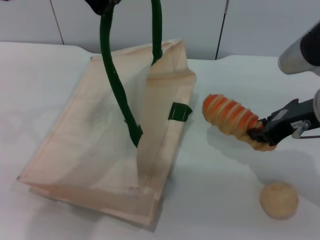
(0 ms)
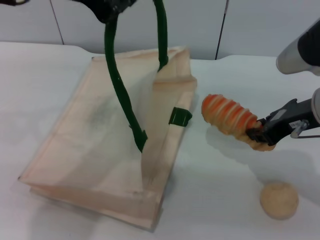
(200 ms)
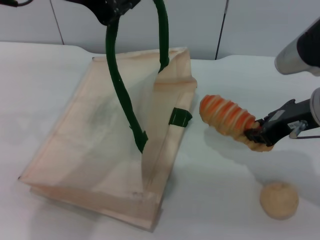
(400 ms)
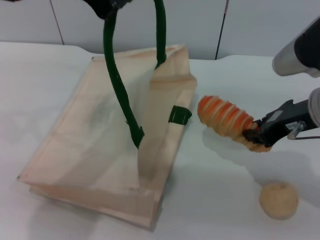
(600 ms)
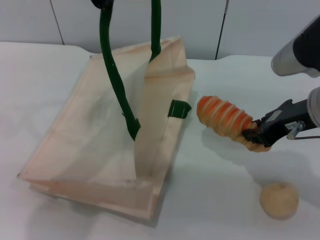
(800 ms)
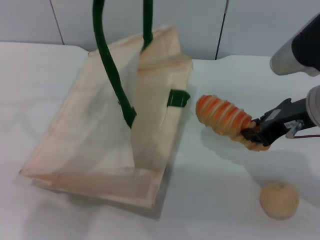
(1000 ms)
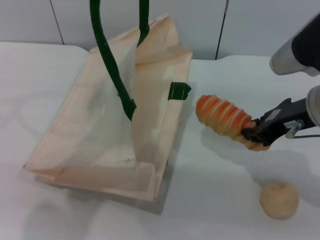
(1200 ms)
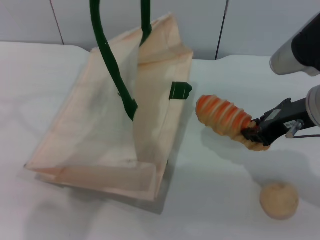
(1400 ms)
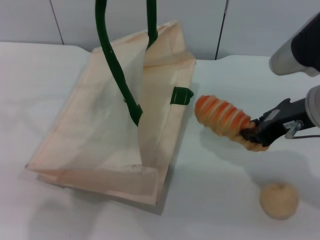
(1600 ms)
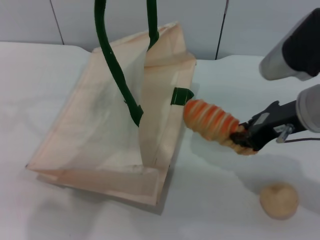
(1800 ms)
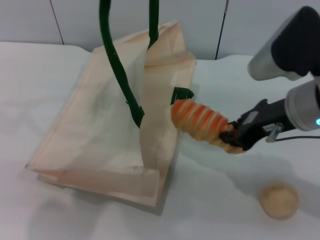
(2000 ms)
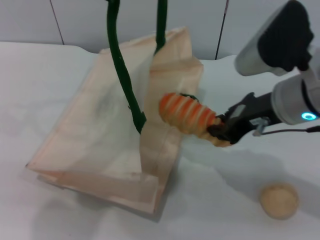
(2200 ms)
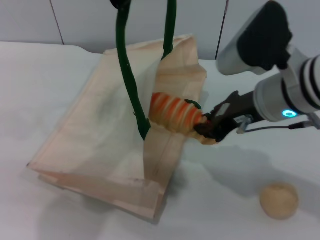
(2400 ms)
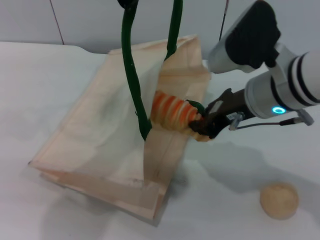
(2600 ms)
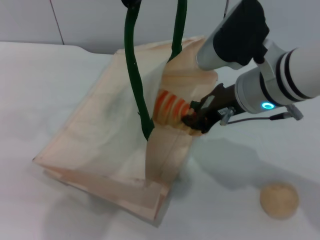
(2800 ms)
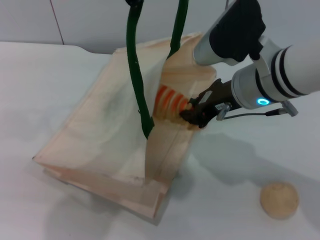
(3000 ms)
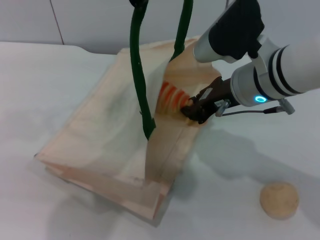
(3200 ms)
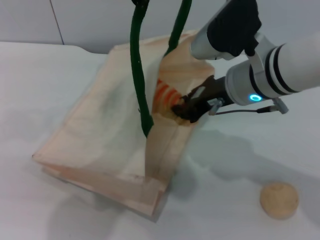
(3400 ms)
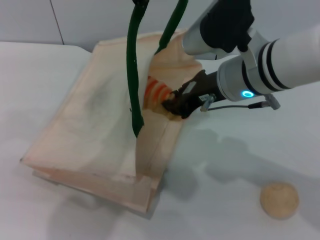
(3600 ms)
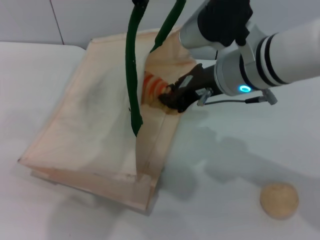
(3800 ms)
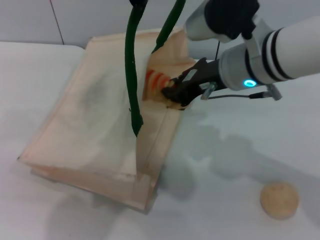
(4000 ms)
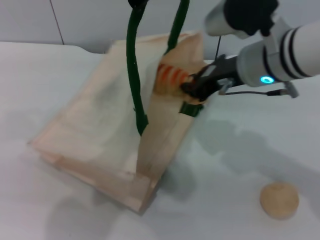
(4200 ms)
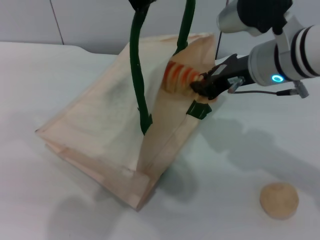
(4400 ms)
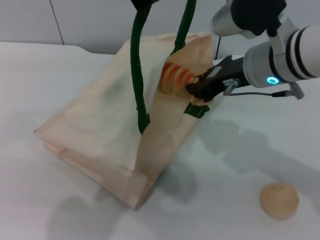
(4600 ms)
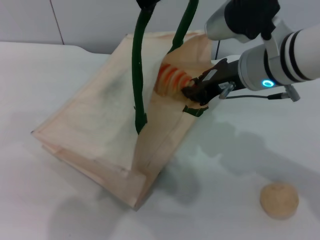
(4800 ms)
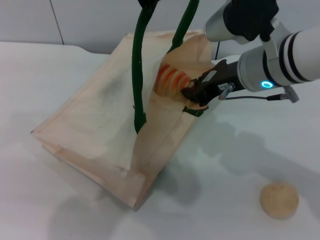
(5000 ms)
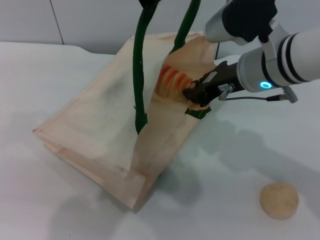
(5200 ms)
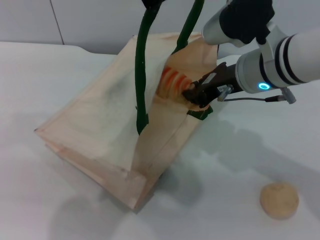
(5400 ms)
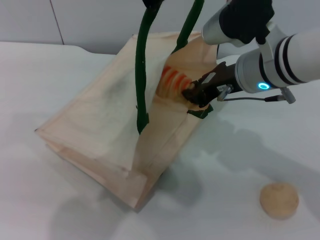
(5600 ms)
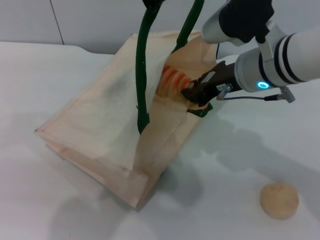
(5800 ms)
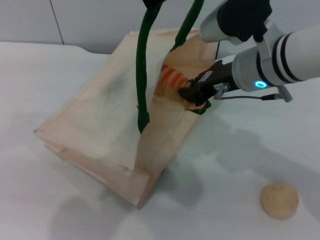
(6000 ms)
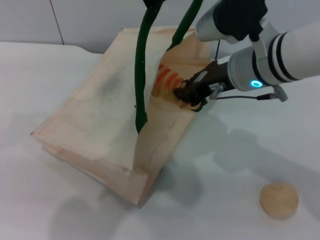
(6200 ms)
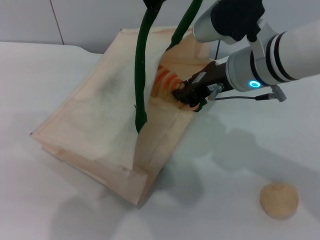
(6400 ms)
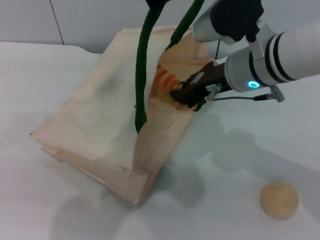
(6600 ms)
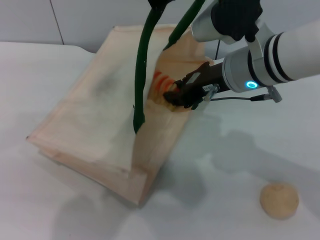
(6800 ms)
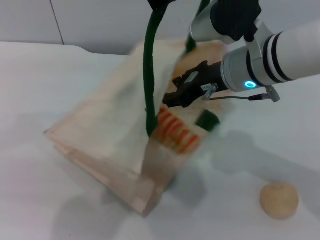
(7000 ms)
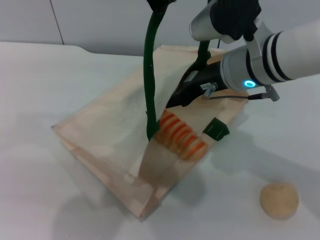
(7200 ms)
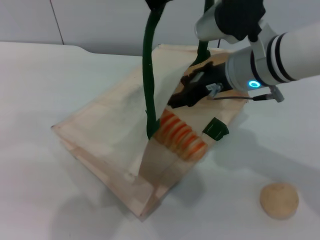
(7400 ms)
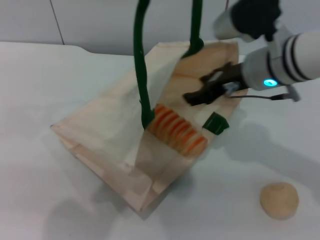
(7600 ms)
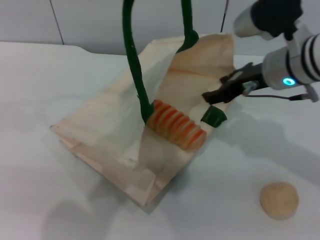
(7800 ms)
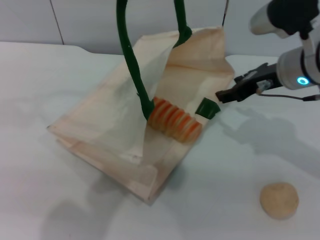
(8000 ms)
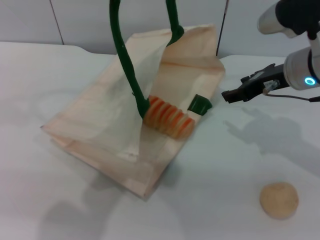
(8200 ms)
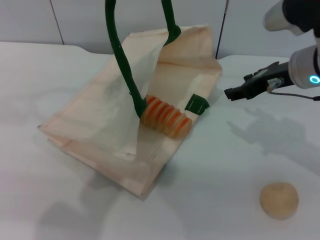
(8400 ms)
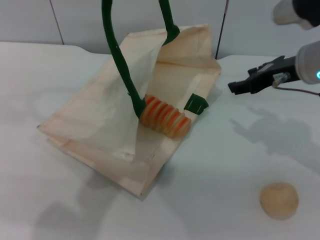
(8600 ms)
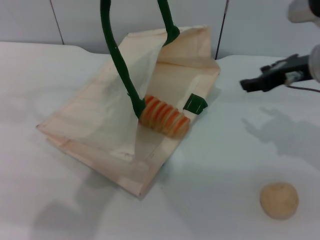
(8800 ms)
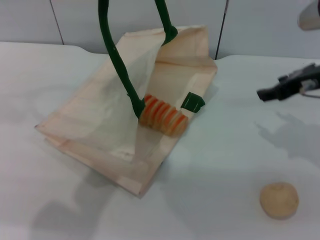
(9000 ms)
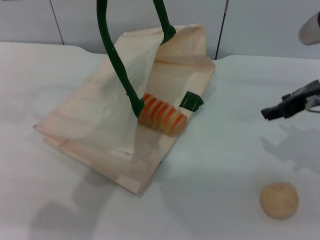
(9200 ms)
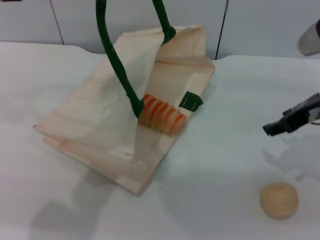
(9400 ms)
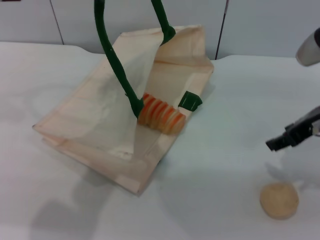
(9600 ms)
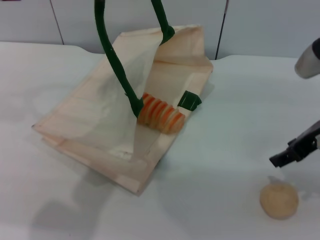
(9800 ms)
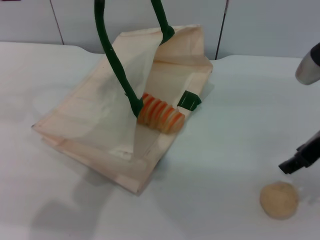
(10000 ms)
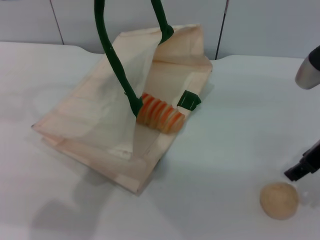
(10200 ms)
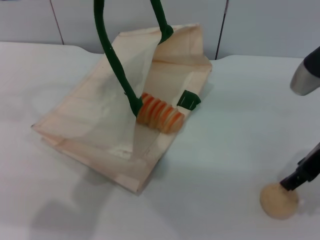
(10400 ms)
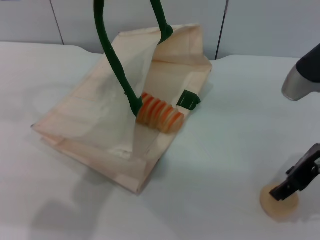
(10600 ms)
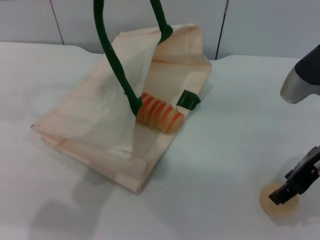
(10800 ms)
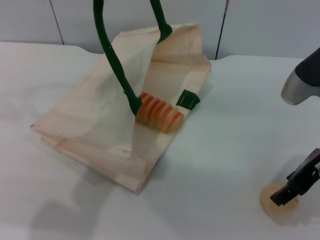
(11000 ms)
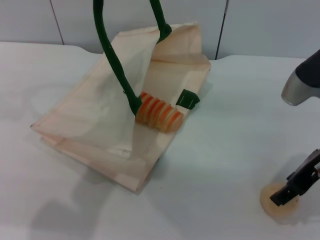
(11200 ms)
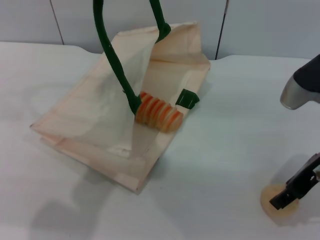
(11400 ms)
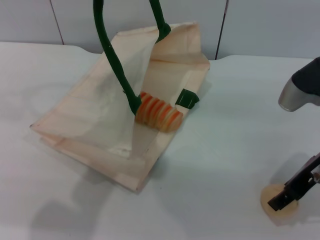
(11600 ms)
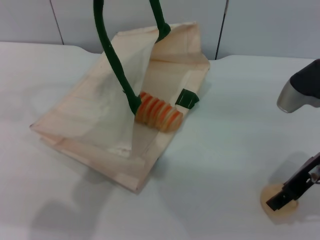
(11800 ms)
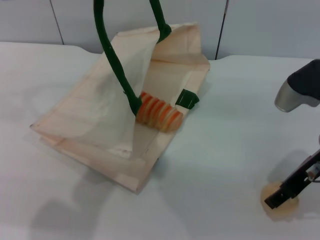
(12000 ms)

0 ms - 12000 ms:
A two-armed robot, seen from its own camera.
Task of the whole recording: pick up the bread and egg yolk pastry from the table and place it in the white handbag.
Step, 0 ms - 7200 ms: Place the bread into the woven bag with the right gripper.
0 ms - 1600 ms: There are only small adjustments of the grippers.
1600 ms - 3000 ms: The right gripper is displaced to the left by roughly 10 cm.
4400 ms - 6000 ms: There are only small adjustments of the grippers.
6000 ms - 7600 ms: The right gripper opens its fingers.
7600 ms - 9000 ms: The right gripper goes some 10 cm to the right.
9000 ms - 10400 ms: The right gripper heads backward, covering roughly 5 cm.
10400 ms - 12000 ms: The grippers move only a little.

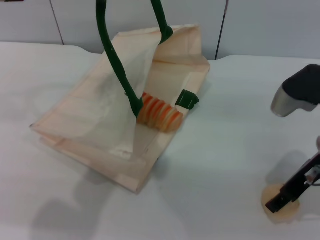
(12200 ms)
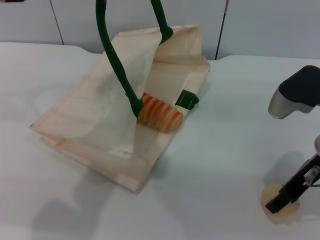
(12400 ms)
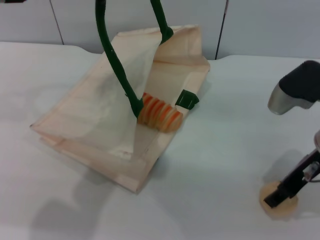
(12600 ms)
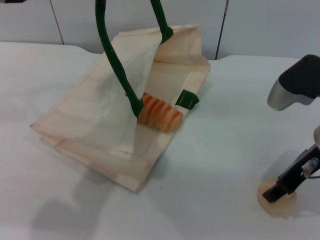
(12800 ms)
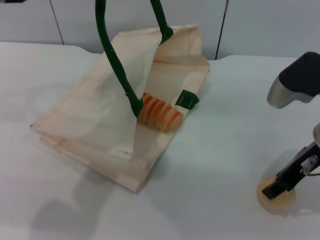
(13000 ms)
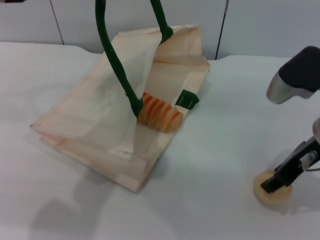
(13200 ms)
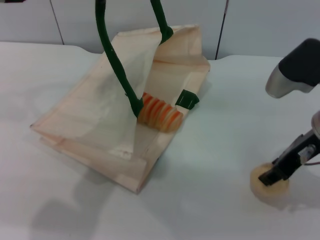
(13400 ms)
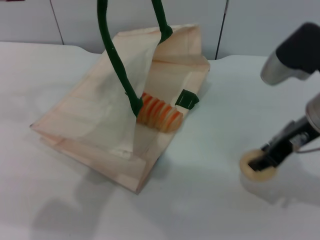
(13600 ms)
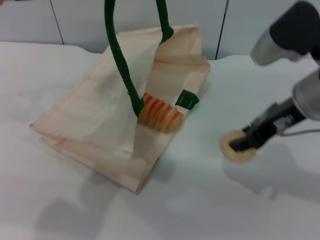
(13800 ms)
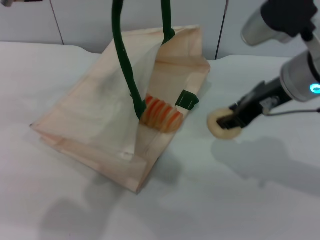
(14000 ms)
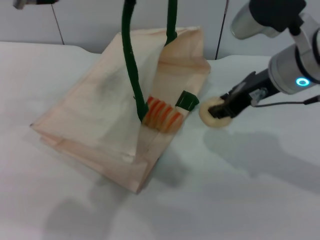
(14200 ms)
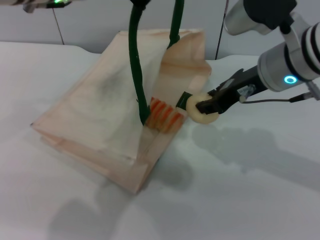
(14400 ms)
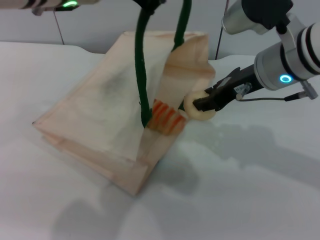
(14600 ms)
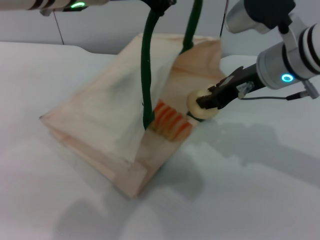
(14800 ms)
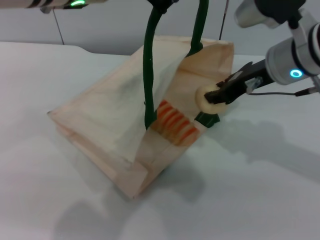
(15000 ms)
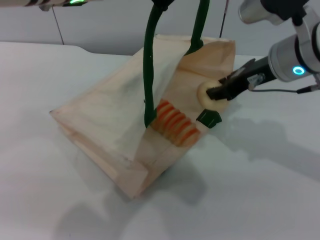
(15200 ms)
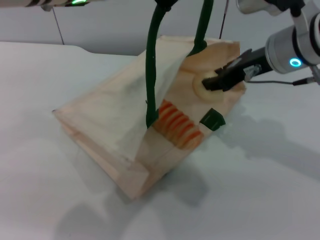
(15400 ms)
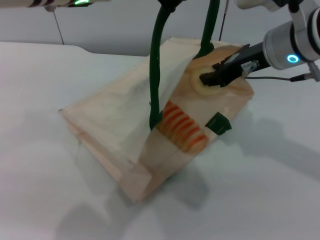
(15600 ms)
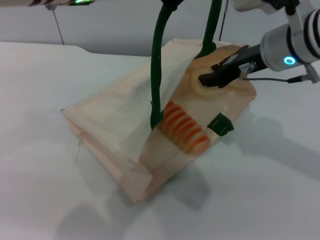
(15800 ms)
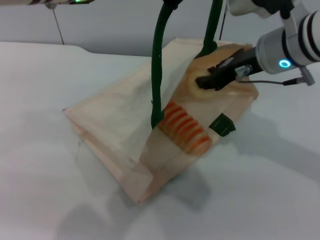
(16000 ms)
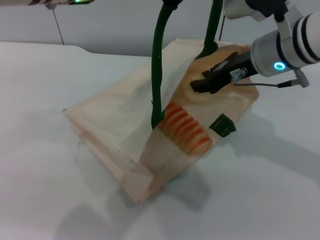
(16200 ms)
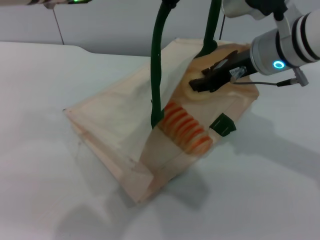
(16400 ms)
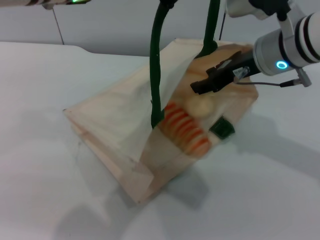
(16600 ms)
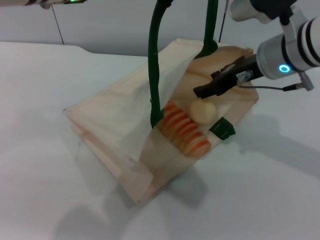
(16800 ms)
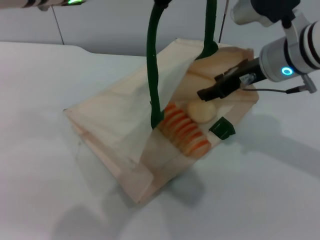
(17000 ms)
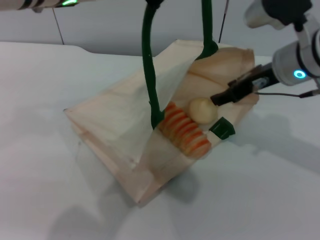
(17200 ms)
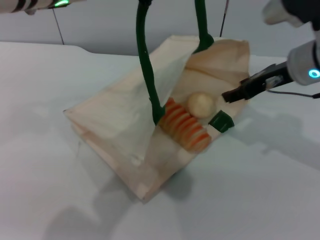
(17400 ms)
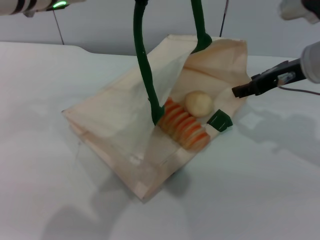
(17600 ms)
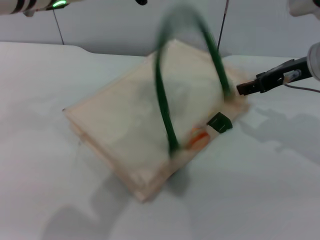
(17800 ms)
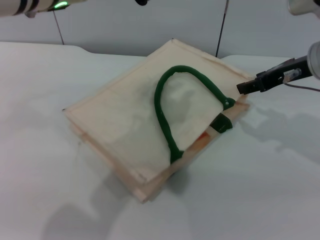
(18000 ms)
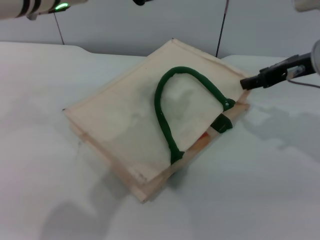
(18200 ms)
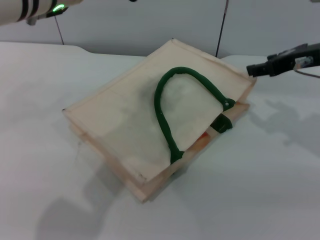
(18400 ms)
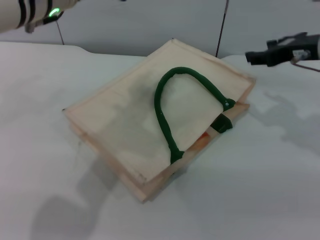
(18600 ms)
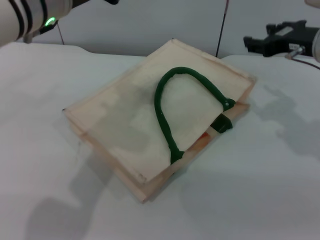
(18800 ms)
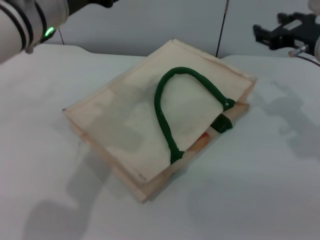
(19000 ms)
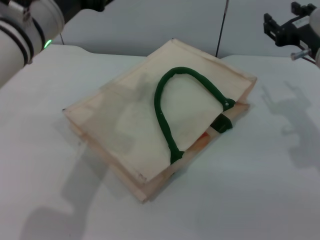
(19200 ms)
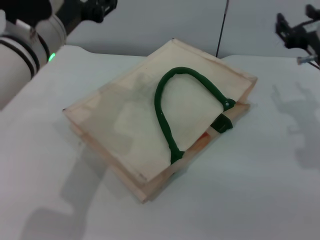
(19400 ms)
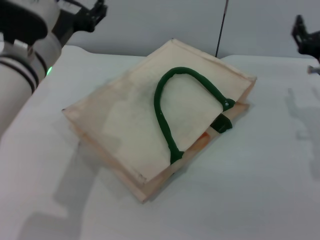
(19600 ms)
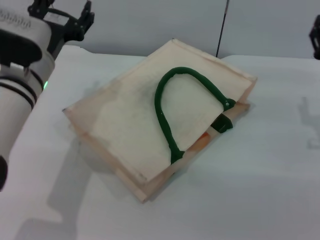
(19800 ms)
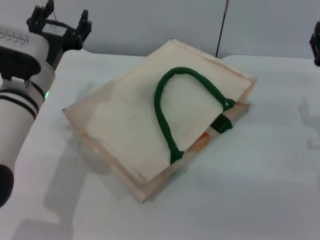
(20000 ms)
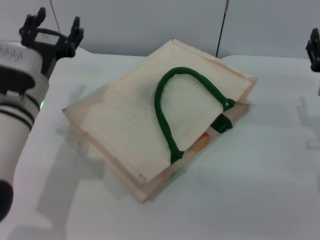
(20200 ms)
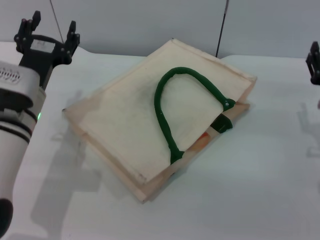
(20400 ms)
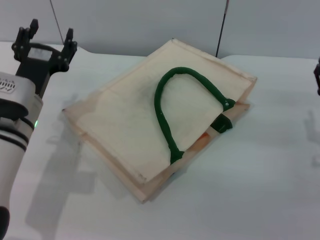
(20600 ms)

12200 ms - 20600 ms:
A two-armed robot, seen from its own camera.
Task of the whole recording: pick up the bread and egg yolk pastry from the table and place it in the white handbag.
Step, 13600 ms - 17000 ms: Place the egg yolk pastry into the woven bag with the right gripper.
Step, 17200 ms - 18800 ms: Lower the woven bag with the left gripper to close it.
12200 ms - 13600 ms: The right gripper changes place by roughly 5 cm.
13600 ms - 15000 ms: The right gripper goes roughly 5 cm forward; the left gripper goes about 5 cm to the right.
15000 ms - 16400 ms: The grippers stay close to where they were, moving slightly.
16400 ms - 17800 ms: The right gripper shifts about 10 cm to the right, and opens its fingers.
17800 ms - 19200 ms: The left gripper moves downward, roughly 10 cm, and opens.
19200 ms - 20600 ms: The right gripper is displaced downward and backward by about 15 cm, while the left gripper heads downward, covering approximately 15 cm.
